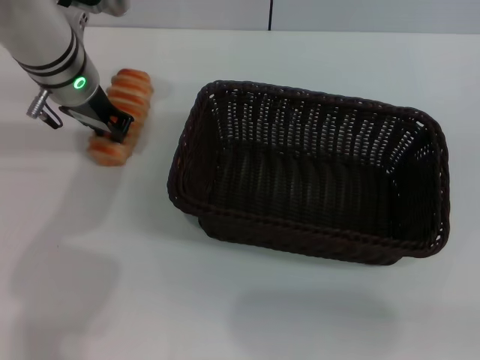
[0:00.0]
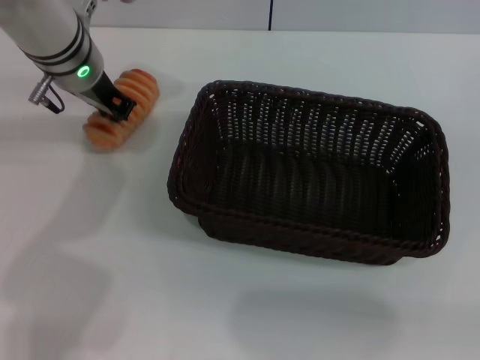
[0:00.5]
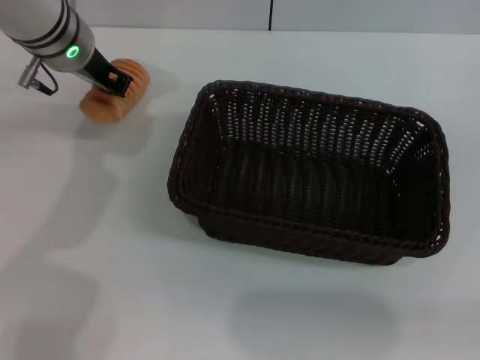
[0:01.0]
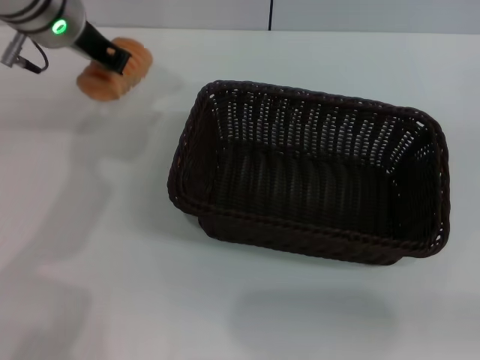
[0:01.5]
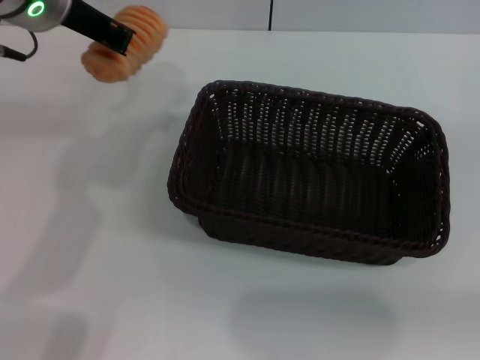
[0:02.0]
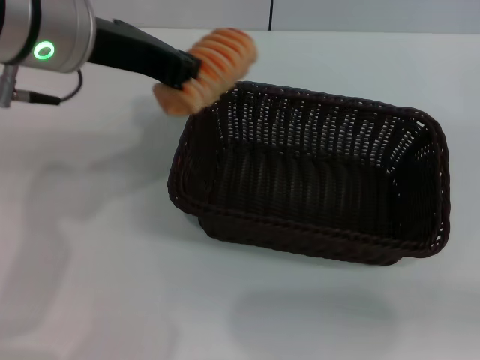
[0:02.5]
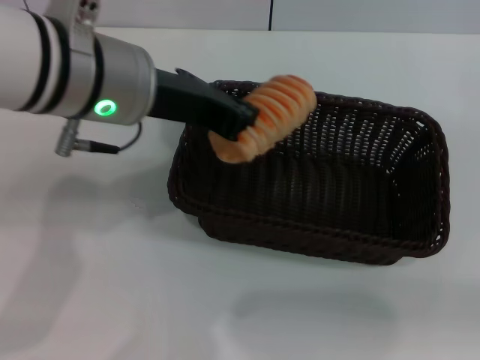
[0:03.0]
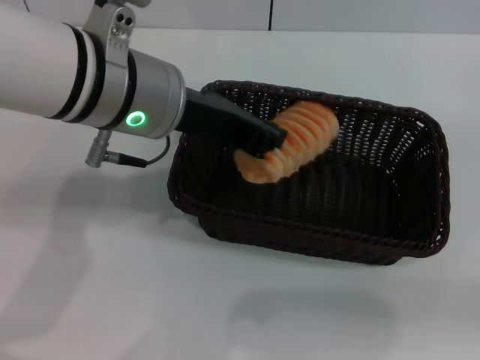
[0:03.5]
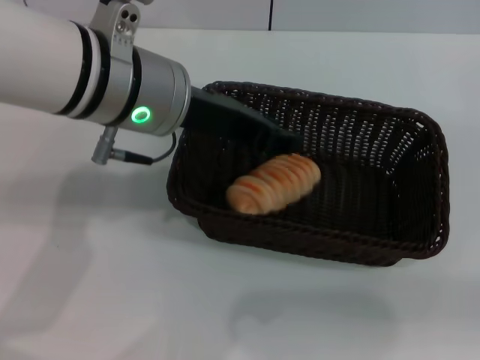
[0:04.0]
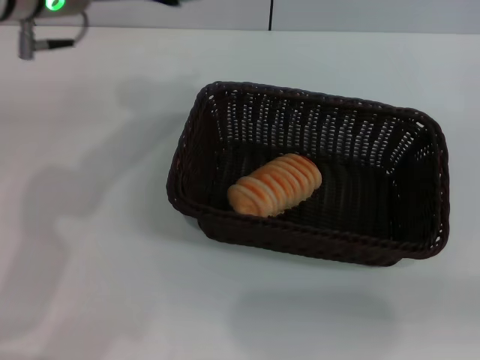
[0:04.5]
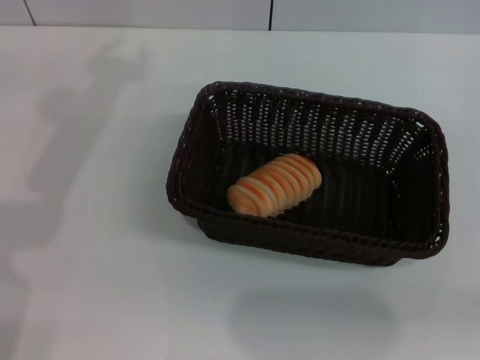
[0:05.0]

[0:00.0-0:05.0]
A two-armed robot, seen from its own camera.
Step, 0:02.0 to 0:04.0: Place the long bread into the dark basket with the left gripper.
0:00.0 to 0:02.5: The left gripper heads upward and backward, covering about 15 cm.
0:02.5 to 0:05.0: The left gripper is displaced to the left by about 10 cm, and opens its fingers.
